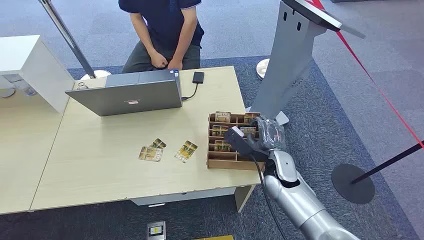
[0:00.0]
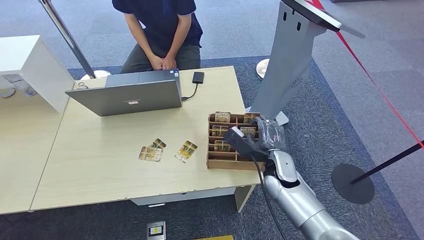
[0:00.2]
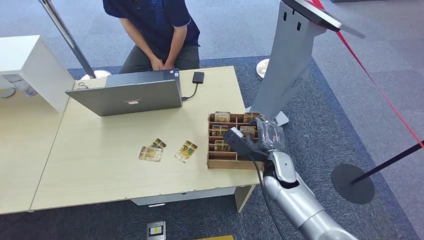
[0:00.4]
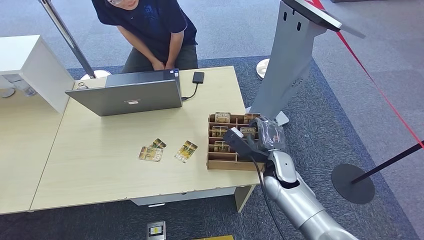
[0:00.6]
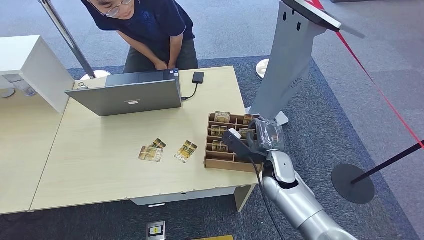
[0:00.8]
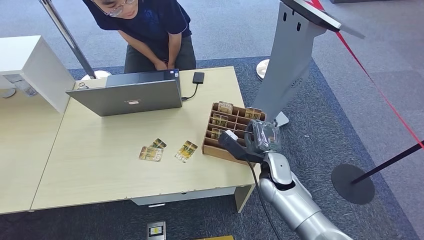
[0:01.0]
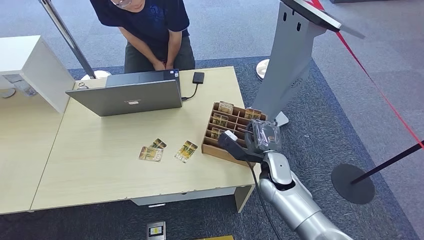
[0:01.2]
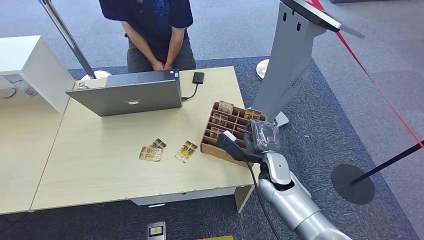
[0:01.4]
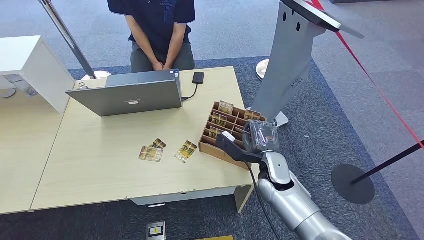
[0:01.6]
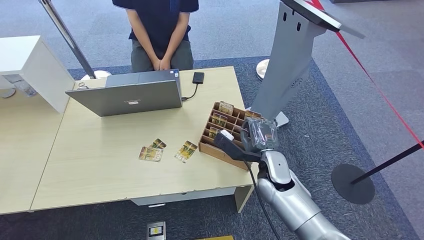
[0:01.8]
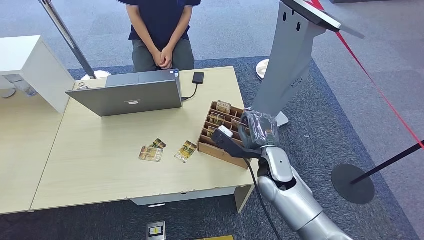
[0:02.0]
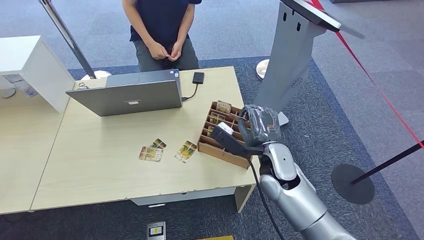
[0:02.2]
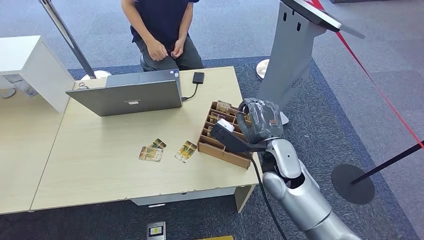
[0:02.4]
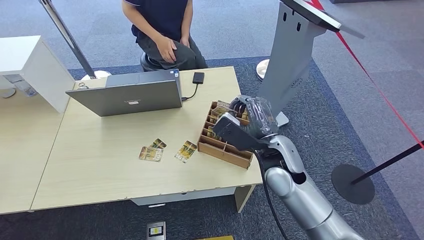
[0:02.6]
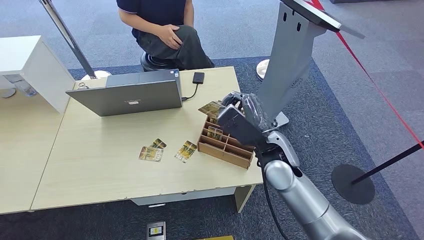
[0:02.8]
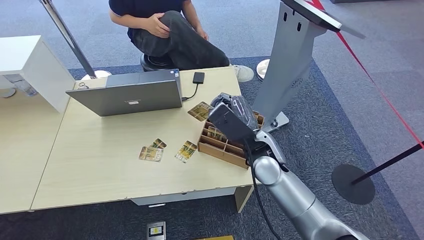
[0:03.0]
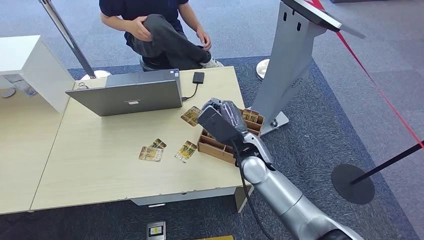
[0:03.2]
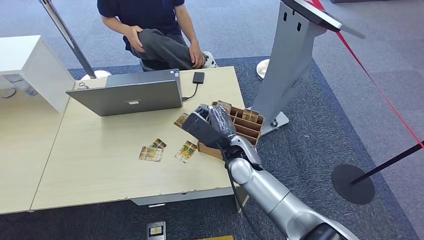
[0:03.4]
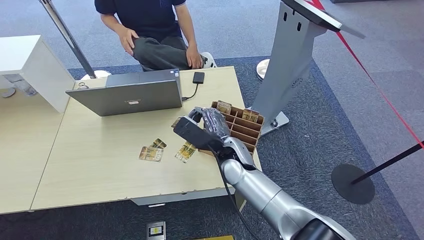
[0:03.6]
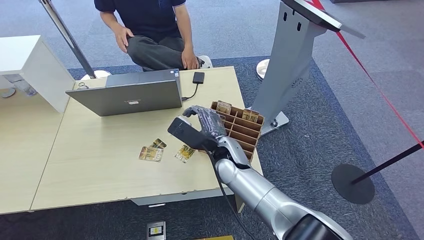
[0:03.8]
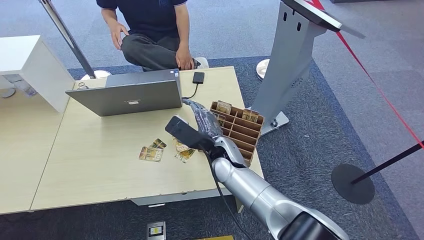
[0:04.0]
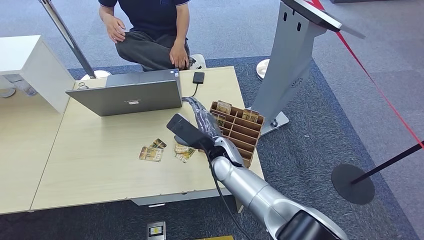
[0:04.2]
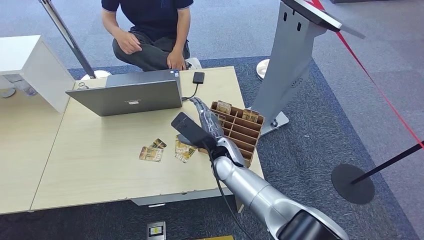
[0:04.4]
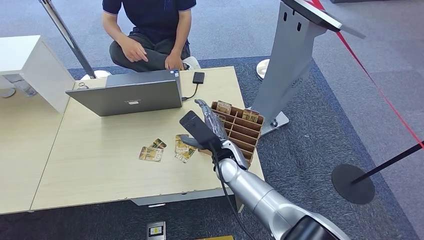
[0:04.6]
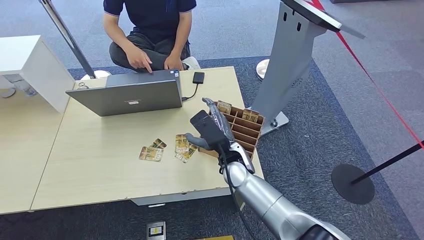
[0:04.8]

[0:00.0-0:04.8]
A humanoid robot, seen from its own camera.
Step, 0:00.0 to 0:02.4: Pick up the room card from the card holder.
Step, 0:02.6 to 0:04.8: Hand the room card to the target.
0:01.6 to 0:03.2: The right hand goes approximately 10 cm upward and to the left.
0:03.2 to 0:04.8: The right hand ends up about 5 cm from where it was.
